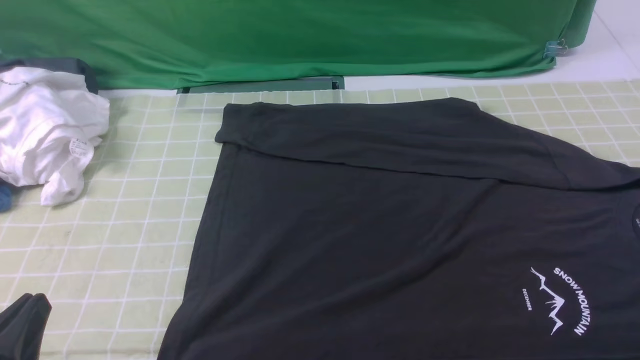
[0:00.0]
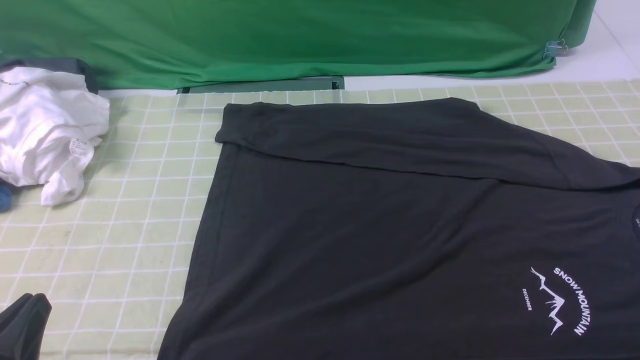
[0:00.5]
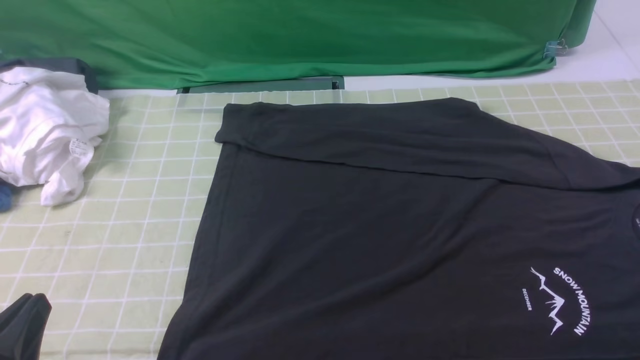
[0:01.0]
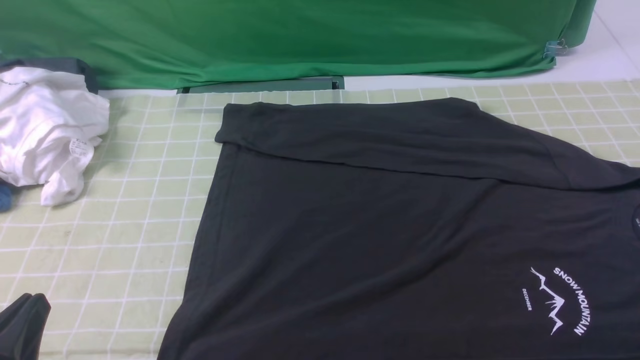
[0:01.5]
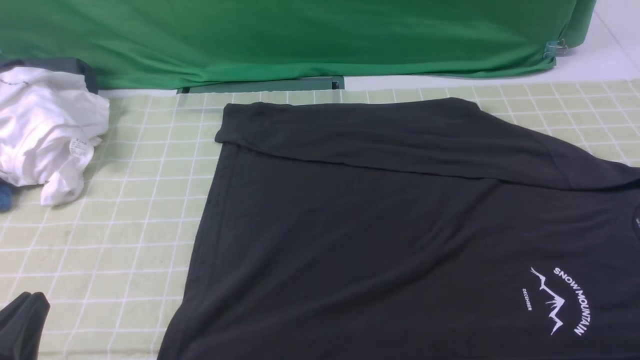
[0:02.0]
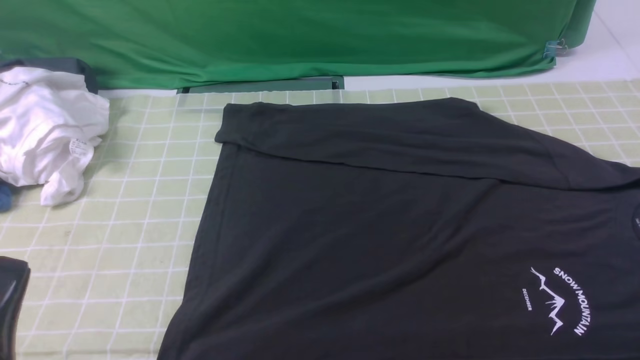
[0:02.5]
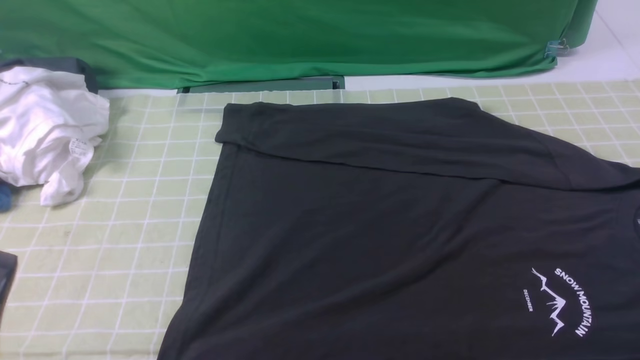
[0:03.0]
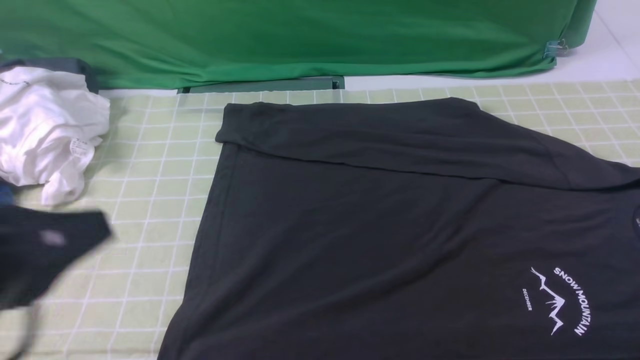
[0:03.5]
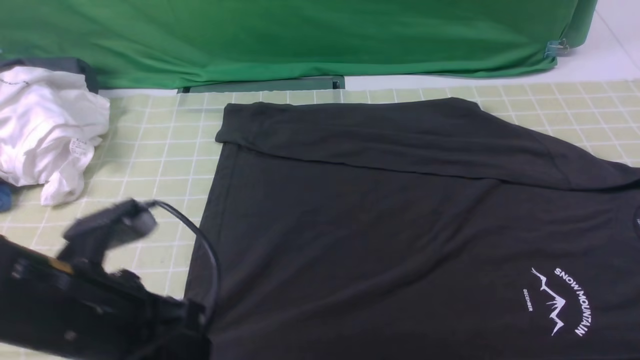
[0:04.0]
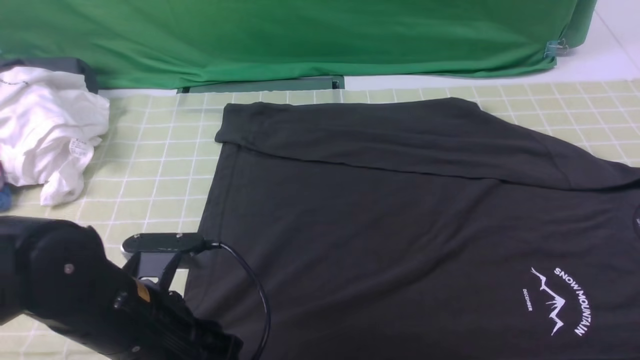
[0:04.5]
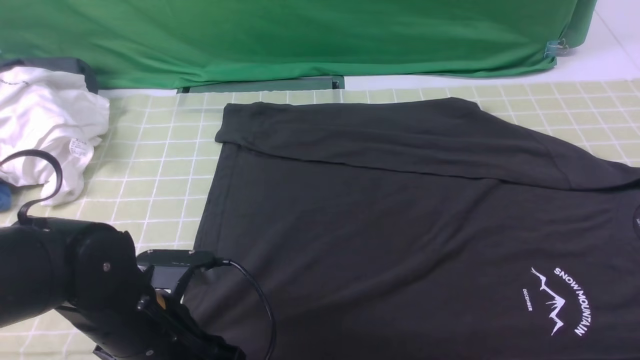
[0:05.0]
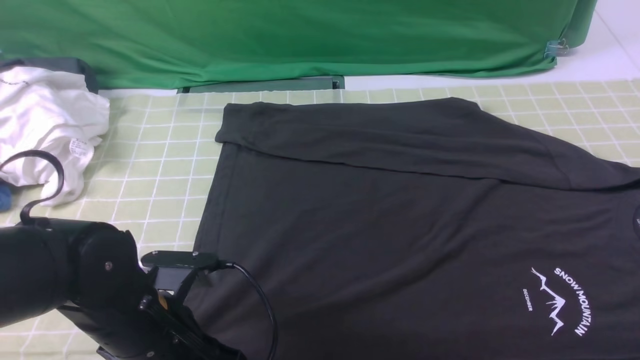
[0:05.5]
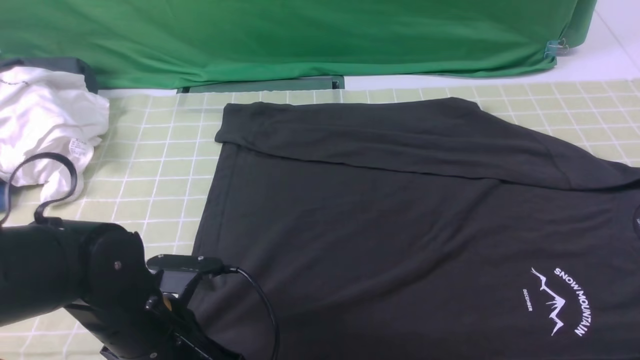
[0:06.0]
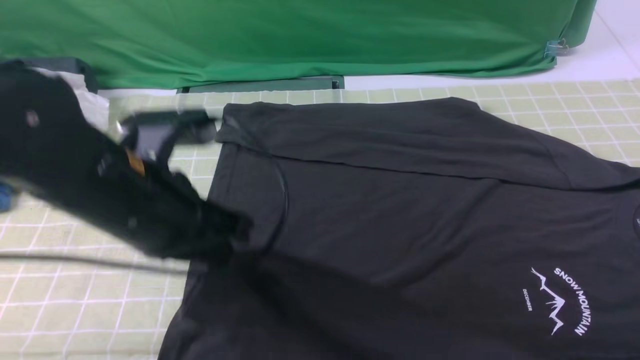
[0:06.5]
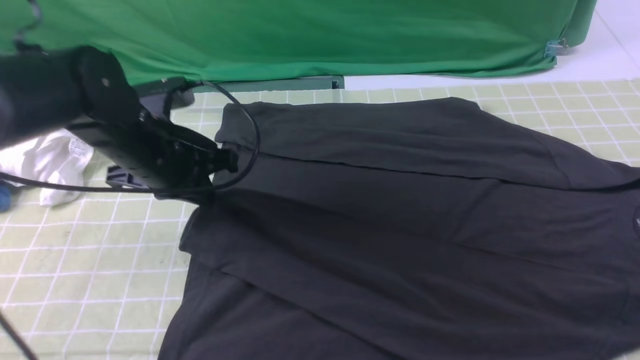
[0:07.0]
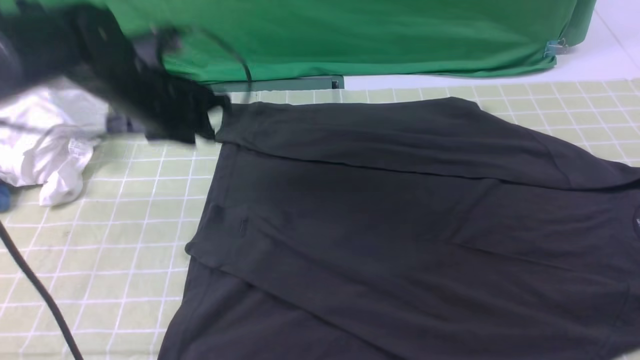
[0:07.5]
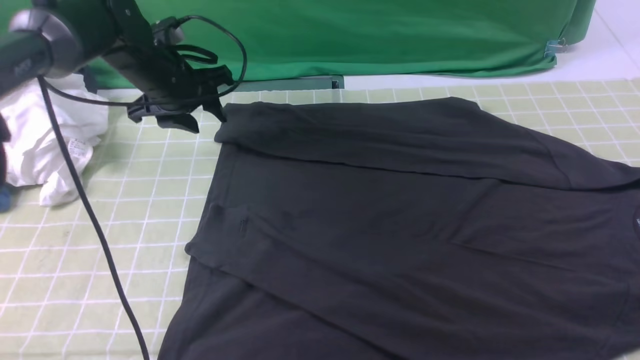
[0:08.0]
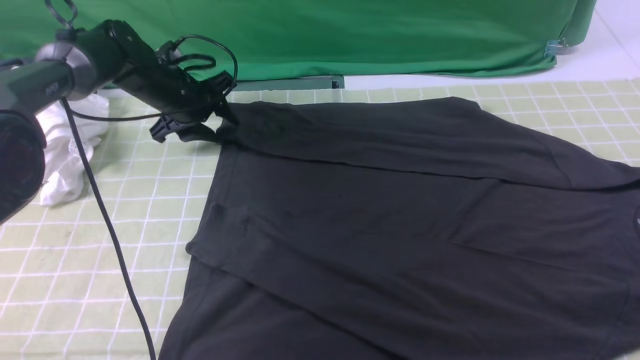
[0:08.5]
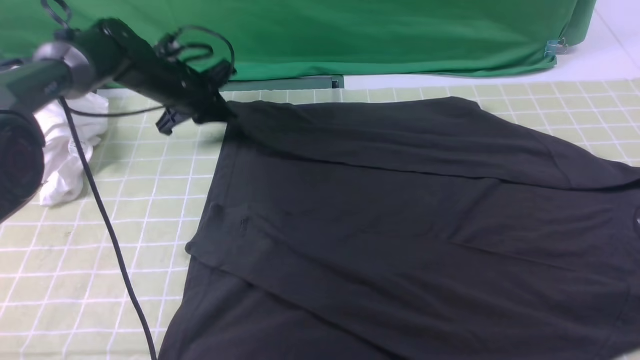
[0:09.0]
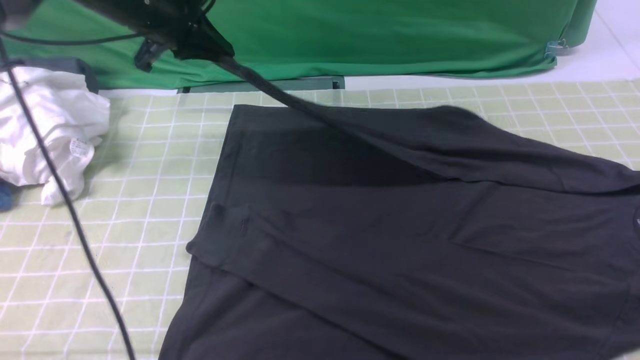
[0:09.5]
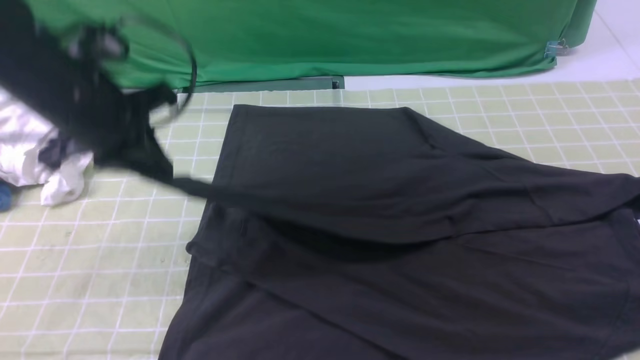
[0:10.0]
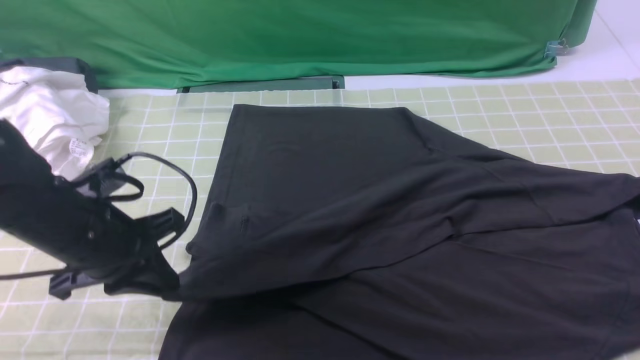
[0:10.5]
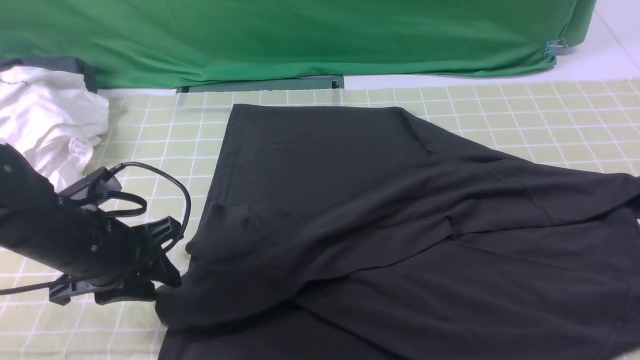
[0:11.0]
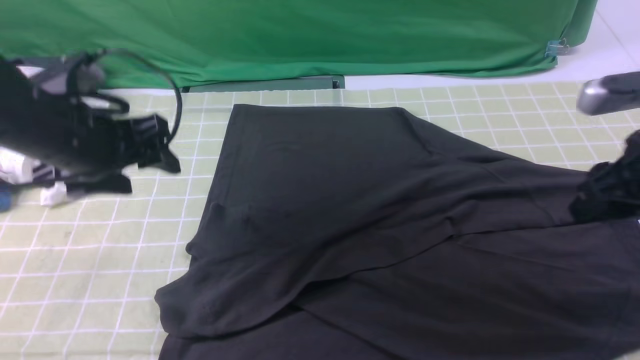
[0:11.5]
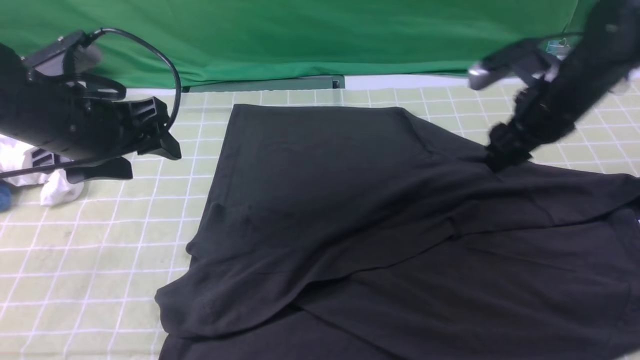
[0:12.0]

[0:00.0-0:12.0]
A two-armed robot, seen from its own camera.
Step, 0:00.0 to 0:05.5: use the left arm to clamp the cuff closest to it.
Step, 0:06.0 to 0:07.0: use the left arm to drag and place the cuff at the centered position on the left edge of the fabric.
Step, 0:07.5 to 0:08.5: use the left arm to clamp the cuff farthest from it.
Step, 0:09.0 to 0:11.0: use the left arm to drag and drop the cuff onto the cuff closest to the left arm.
0:00.0 to 0:02.0: Neither gripper changes place.
0:02.0 to 0:04.0: The left gripper travels forward and to the right by roughly 15 cm.
0:04.0 to 0:06.0: The left gripper travels downward by approximately 5 cm, and opens and closes again.
0:06.0 to 0:08.0: The left gripper moves forward, some 30 cm, and opens up.
0:08.0 to 0:10.0: The left gripper shifts approximately 15 cm backward and upward, and closes up.
0:10.0 to 0:12.0: The left gripper reaches about 10 cm downward, then returns, and opens, while the right gripper moves forward and downward, some 30 cm, and opens.

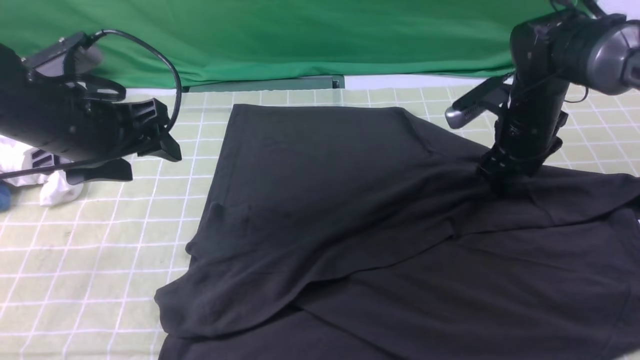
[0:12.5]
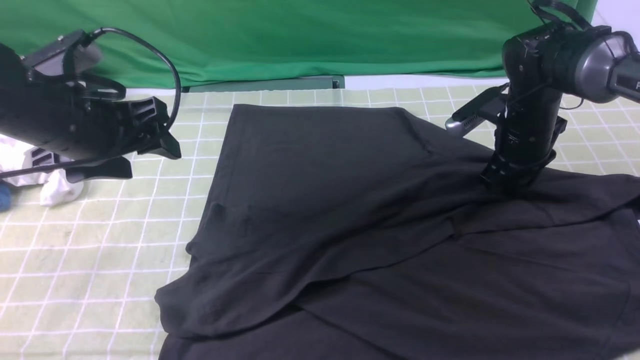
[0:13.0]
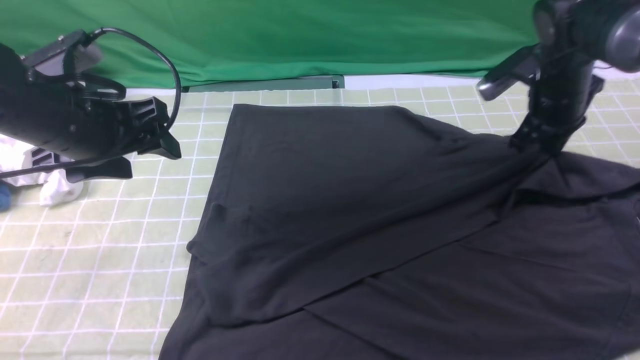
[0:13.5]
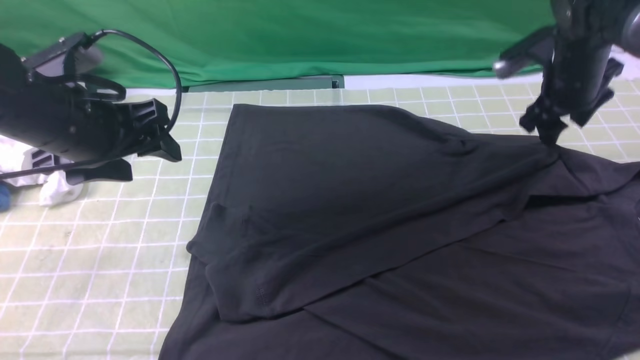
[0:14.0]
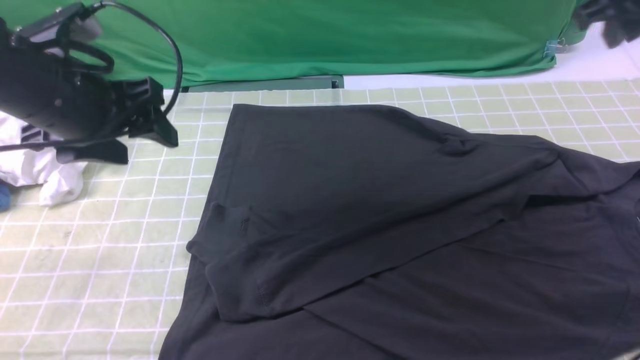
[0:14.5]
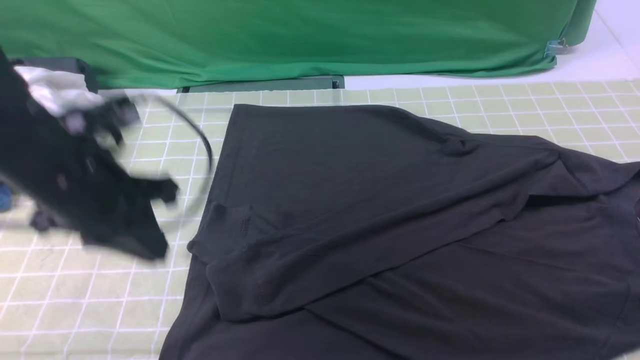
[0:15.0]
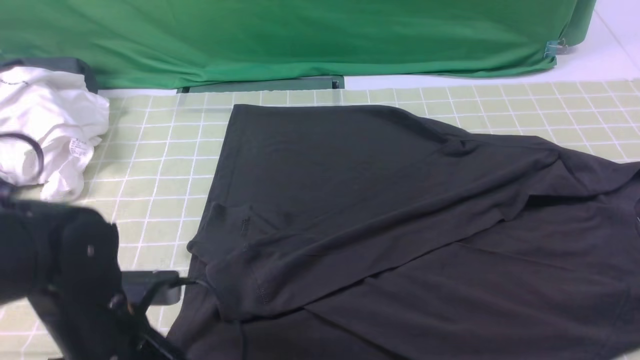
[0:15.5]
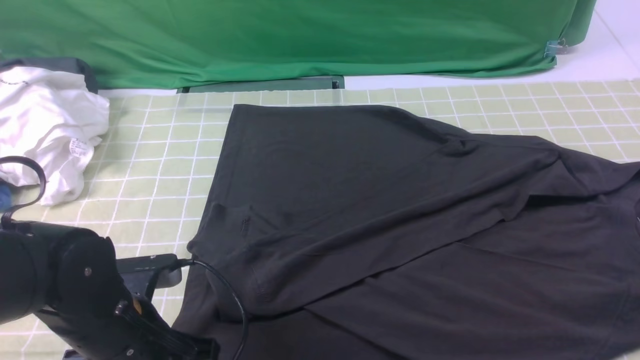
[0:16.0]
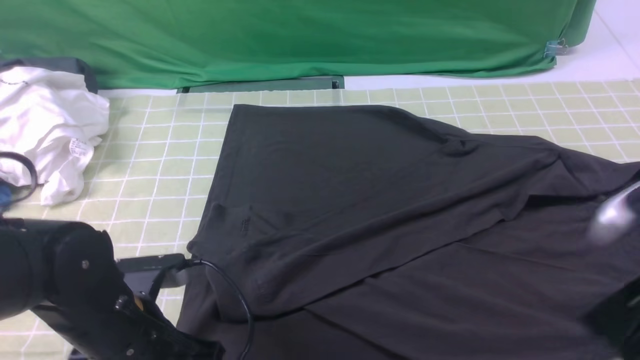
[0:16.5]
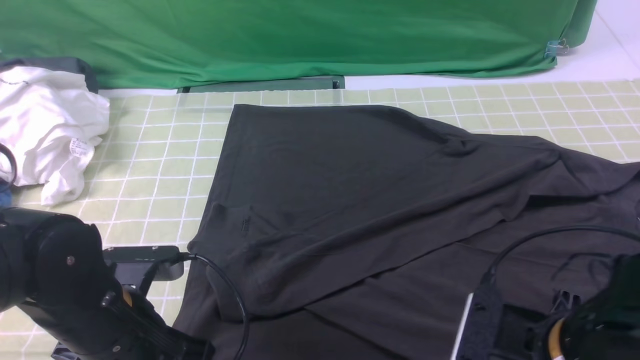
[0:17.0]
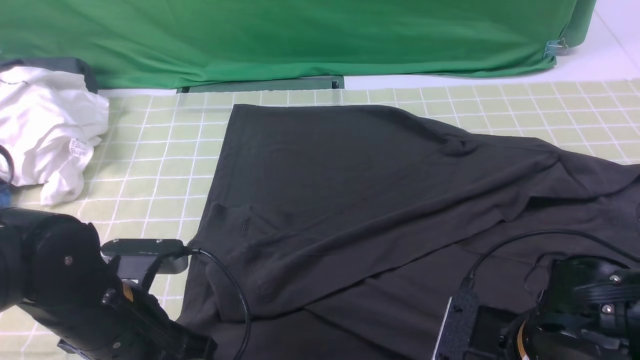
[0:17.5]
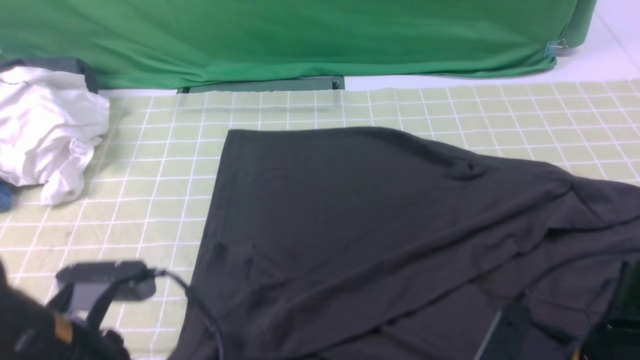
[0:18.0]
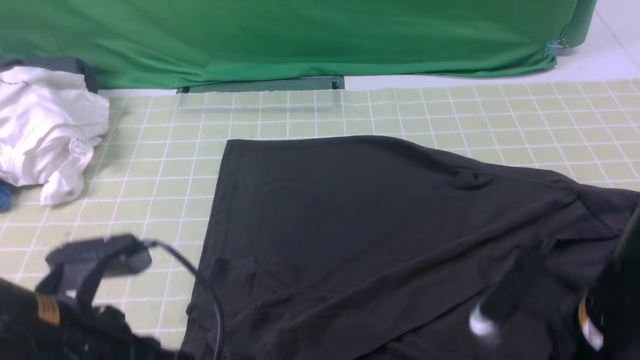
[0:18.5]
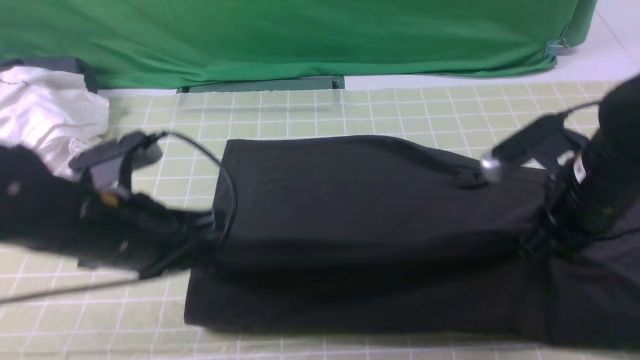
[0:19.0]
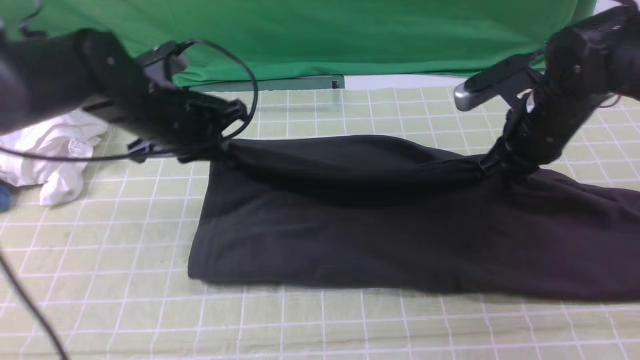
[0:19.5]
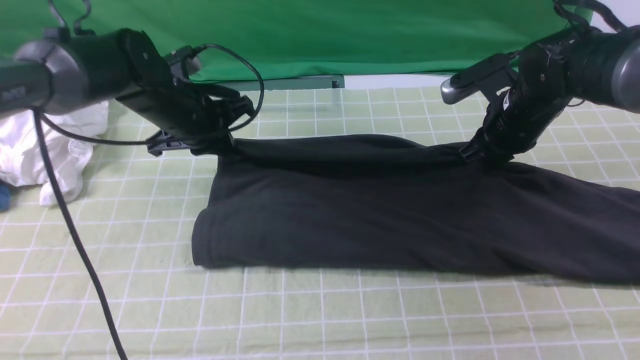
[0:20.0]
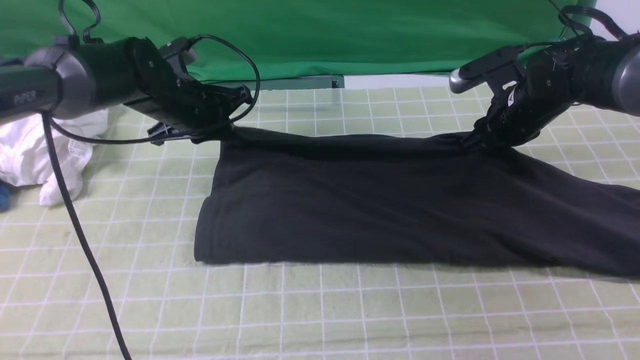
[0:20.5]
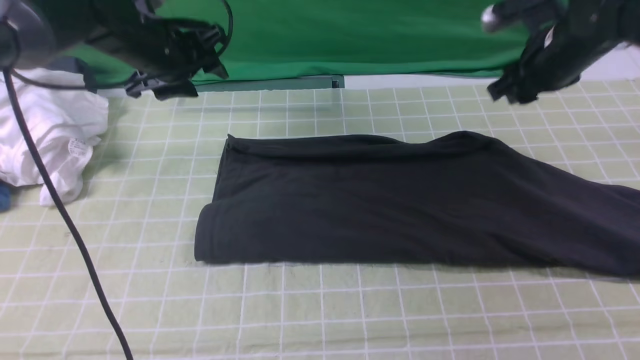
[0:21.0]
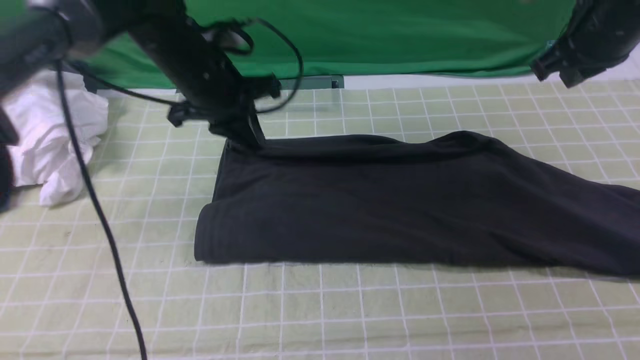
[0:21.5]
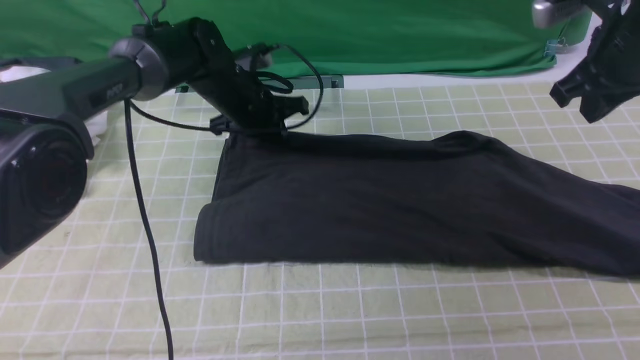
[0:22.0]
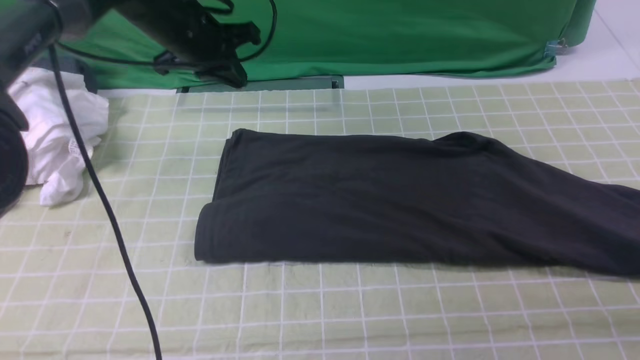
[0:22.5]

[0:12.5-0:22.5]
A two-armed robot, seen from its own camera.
Step, 0:12.5 to 0:17.0: use both arms simultaneously to clamp the lower edge of the clothing fabric.
Step, 0:18.0 to 0:20.5: use both arms to drag the lower edge of the fabric forward and fold it over the upper edge.
0:12.5 to 0:14.5: The right gripper heads upward, covering some 20 cm, and closes up.
0:14.5 to 0:16.5: The right gripper moves backward and downward, some 25 cm. The left gripper heads downward, backward and to the right, covering approximately 20 cm, and closes.
0:16.5 to 0:18.5: The right gripper is displaced to the left by some 5 cm, and opens, then closes again. Meanwhile the left gripper moves upward, roughly 10 cm.
0:18.5 to 0:20.5: Both grippers move forward, some 30 cm. The right gripper opens up.
0:20.5 to 0:22.5: The right gripper goes some 20 cm to the right, backward and upward, and closes up; the left gripper moves up and down over some 5 cm, changing direction 2 times, and opens, then closes again.
